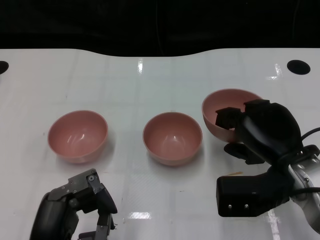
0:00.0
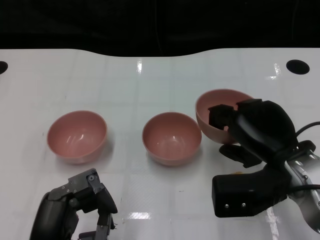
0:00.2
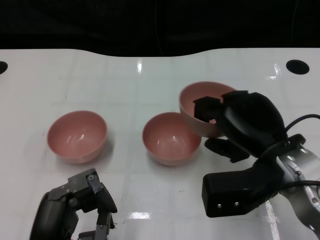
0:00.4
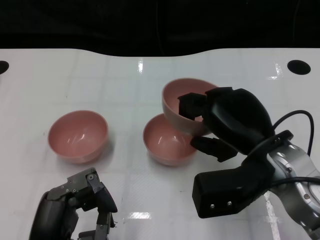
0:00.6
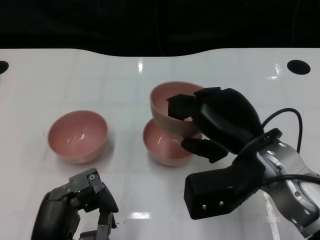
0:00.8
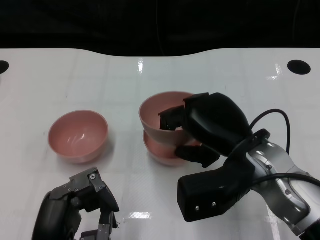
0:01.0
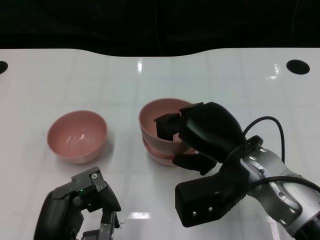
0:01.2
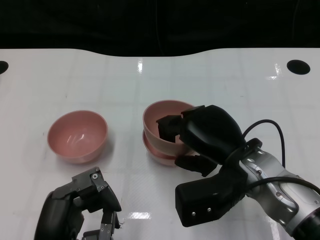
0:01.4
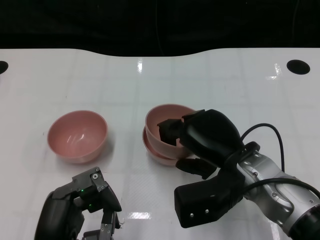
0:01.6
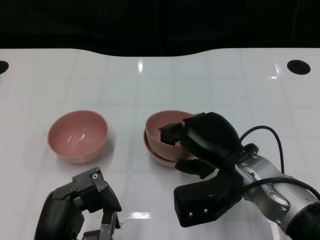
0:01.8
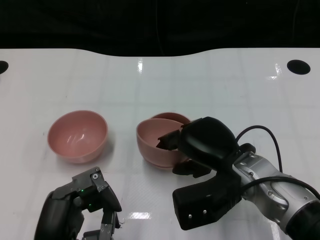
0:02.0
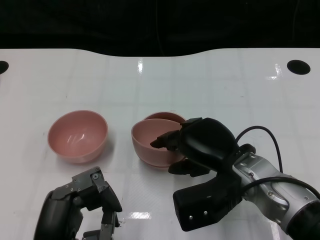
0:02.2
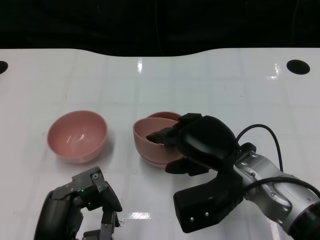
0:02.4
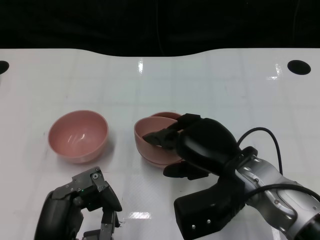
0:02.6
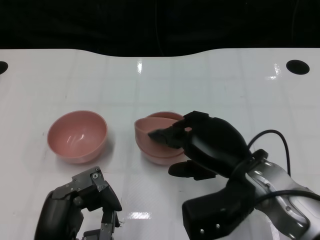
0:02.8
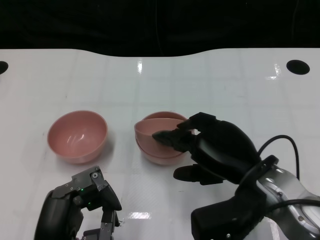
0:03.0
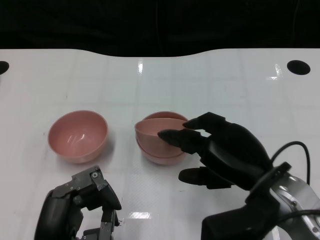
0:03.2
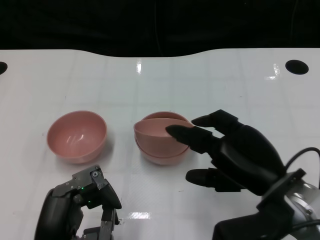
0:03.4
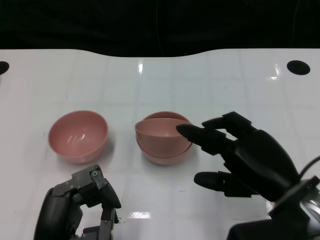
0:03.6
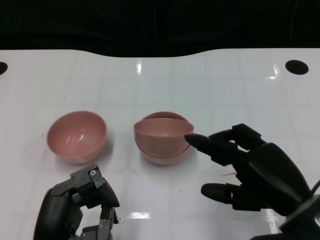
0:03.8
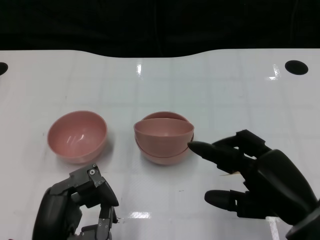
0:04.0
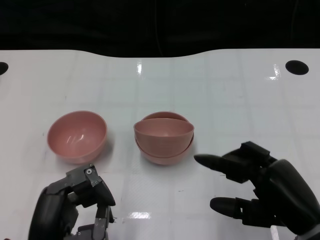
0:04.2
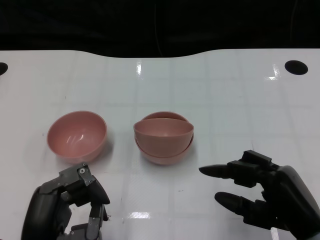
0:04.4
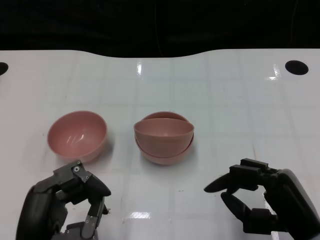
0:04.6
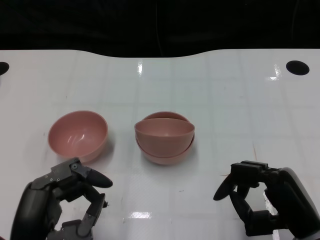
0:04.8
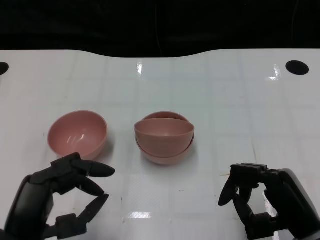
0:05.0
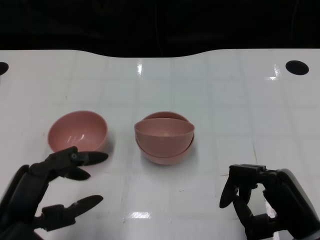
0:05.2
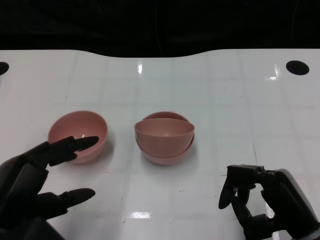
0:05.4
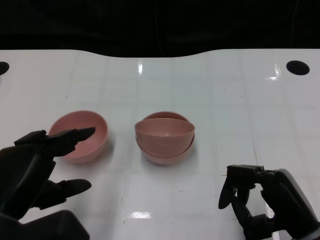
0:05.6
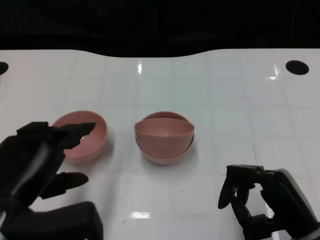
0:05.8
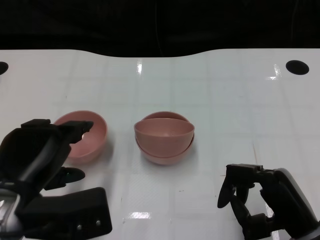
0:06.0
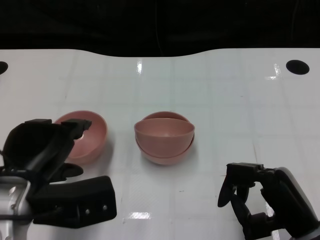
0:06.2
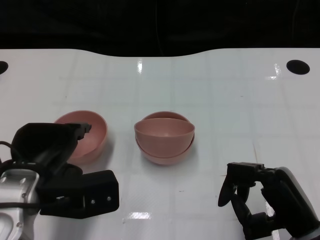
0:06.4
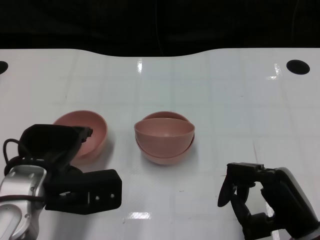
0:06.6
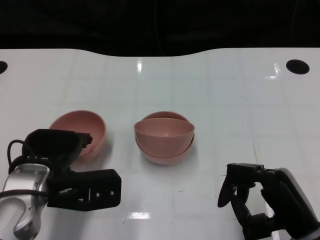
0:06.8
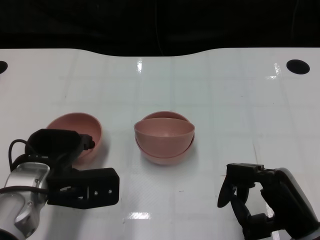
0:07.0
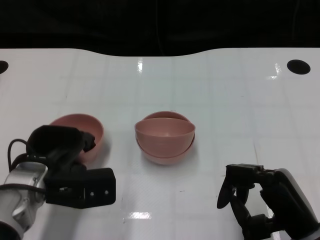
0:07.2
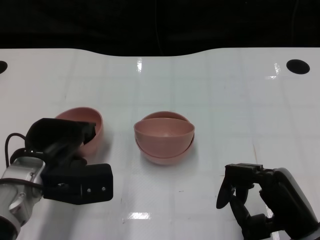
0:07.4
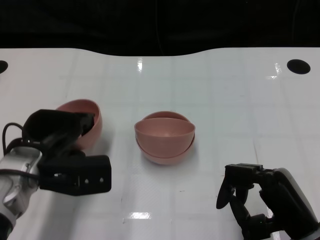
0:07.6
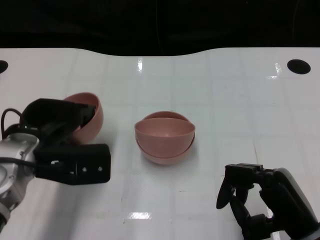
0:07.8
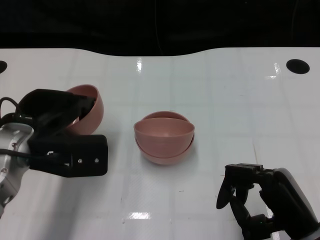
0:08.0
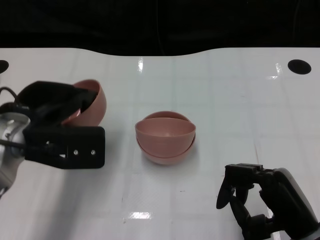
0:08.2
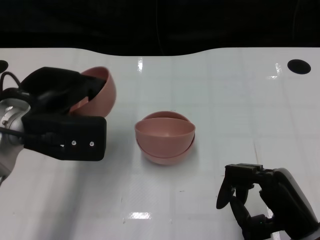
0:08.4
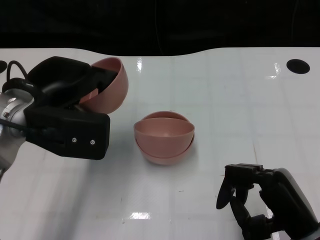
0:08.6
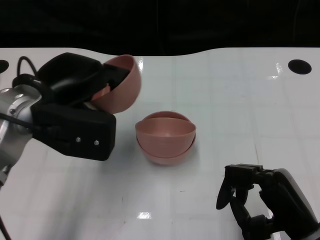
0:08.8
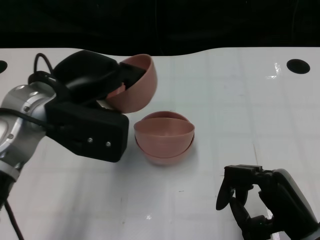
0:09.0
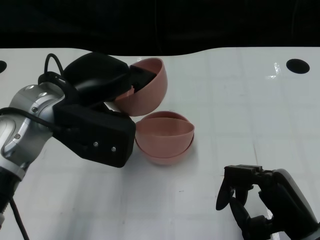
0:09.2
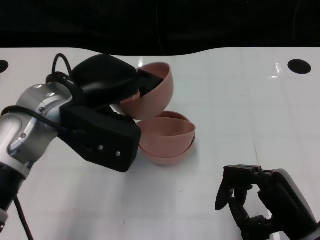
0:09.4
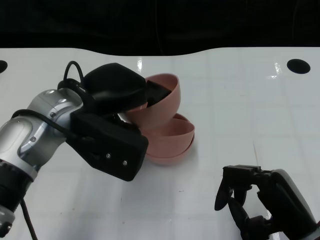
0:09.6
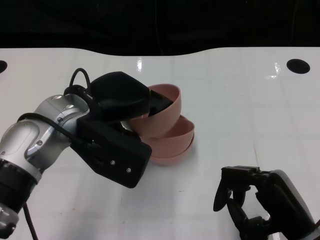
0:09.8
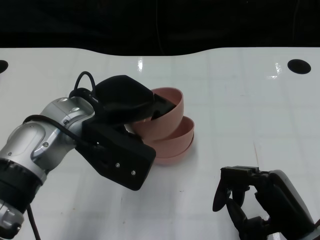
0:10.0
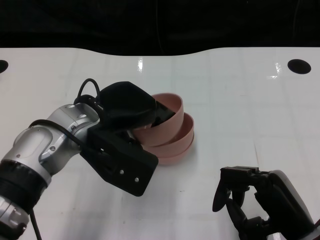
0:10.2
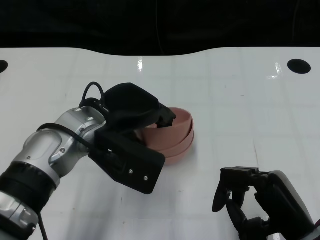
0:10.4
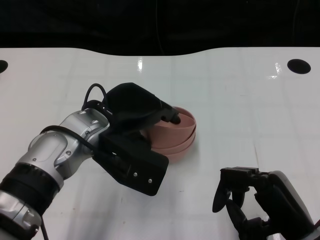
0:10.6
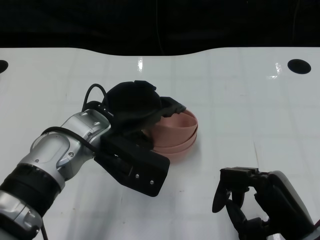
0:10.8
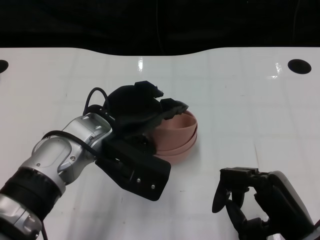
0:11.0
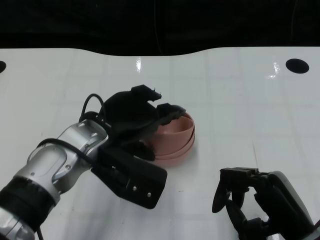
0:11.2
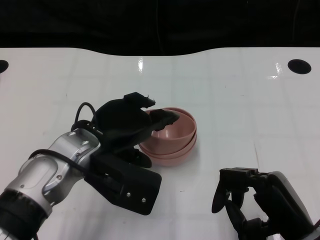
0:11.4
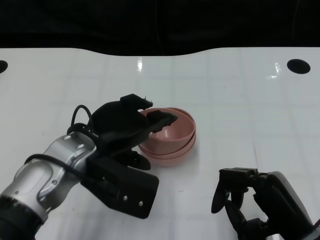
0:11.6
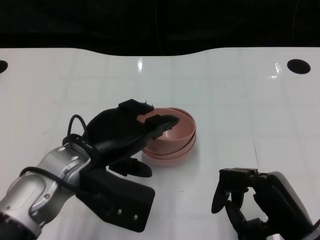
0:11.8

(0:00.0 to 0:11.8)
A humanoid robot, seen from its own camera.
Task of the whole recording: Pick up the bowl on one side of the table and place it on top of the middle bowl, then pick up the bowl on the other side of the table and place it on top of the middle bowls.
Step, 0:00.0 - 0:03.4: Place the bowl on the right onto the bowl in the middle with right gripper.
Step, 0:03.6 - 0:07.4: Grasp the bowl on the left with the left gripper.
0:00.0 - 0:01.4: The right hand shifts approximately 5 cm to the left.
0:01.4 - 0:03.0: The hands stay close to where they were, moving slightly.
0:03.0 - 0:04.4: The right hand shifts some 10 cm backward and to the right.
0:04.4 - 0:06.0: The left hand moves upward and forward, about 10 cm.
0:06.0 - 0:07.4: The left hand goes roughly 10 cm forward and downward.
0:07.4 - 0:08.8: The left hand travels upward by approximately 10 cm.
0:08.8 - 0:10.4: The left hand goes roughly 5 cm to the right.
0:10.4 - 0:11.8: The left hand changes place by about 5 cm.

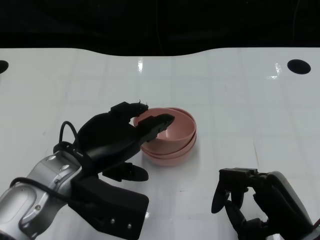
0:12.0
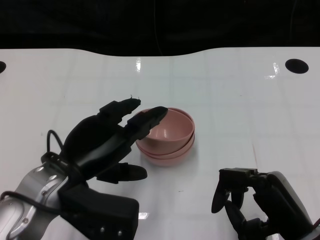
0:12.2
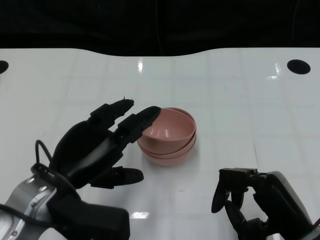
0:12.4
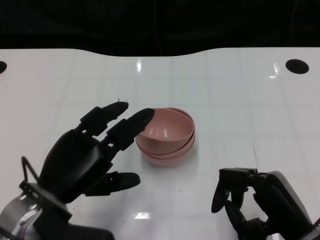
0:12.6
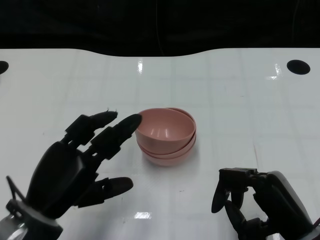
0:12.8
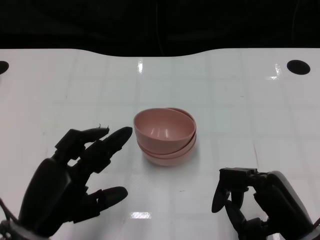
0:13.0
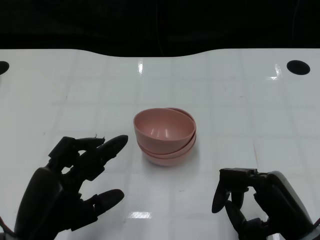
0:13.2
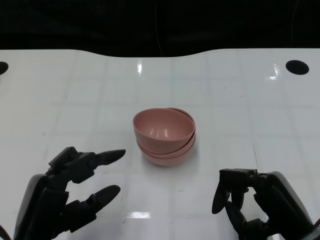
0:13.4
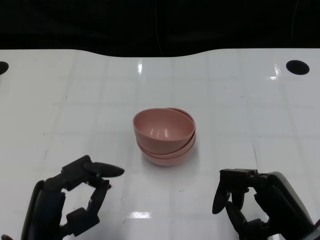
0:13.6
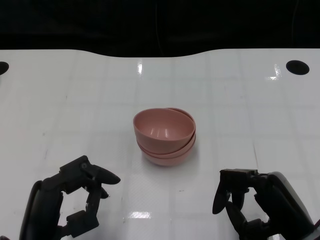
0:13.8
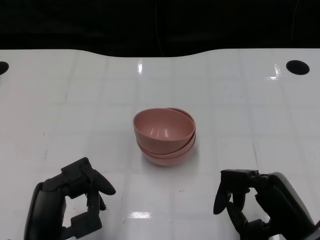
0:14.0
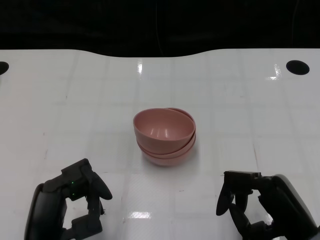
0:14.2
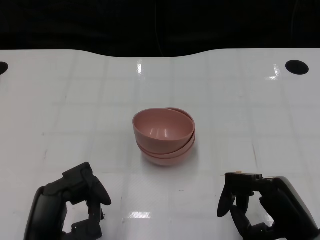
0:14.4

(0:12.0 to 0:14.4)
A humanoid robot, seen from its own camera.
Task of the whole recording: Pick up the bowl on one side of the table and place it on top of the middle bowl, then pick up the bowl on the other side of the table and place it on top of the middle bowls.
0:12.0 - 0:13.2: The left hand travels backward and to the left by approximately 10 cm.

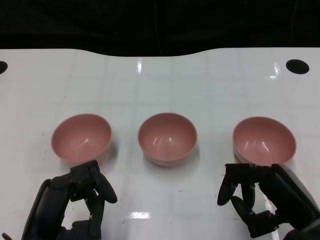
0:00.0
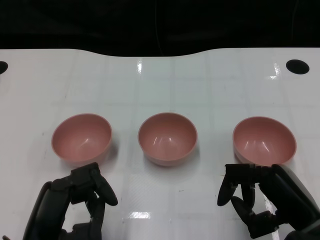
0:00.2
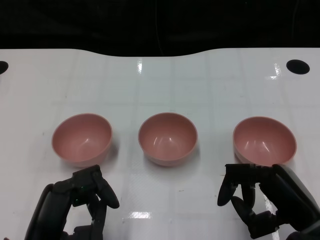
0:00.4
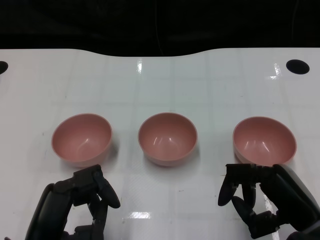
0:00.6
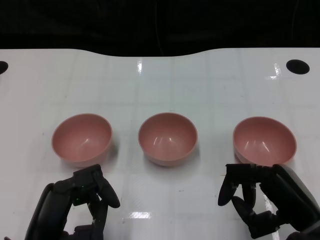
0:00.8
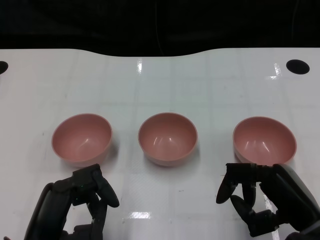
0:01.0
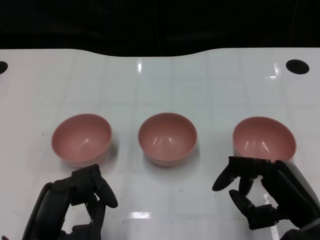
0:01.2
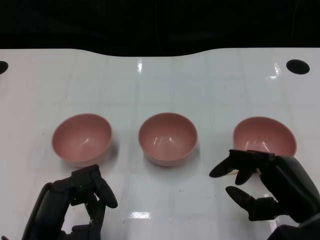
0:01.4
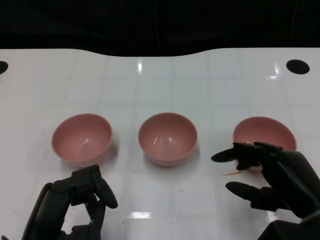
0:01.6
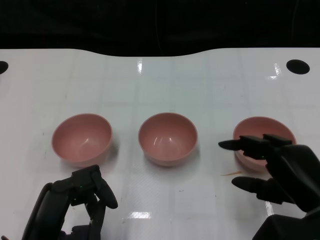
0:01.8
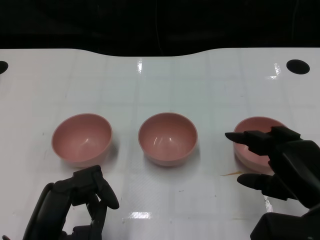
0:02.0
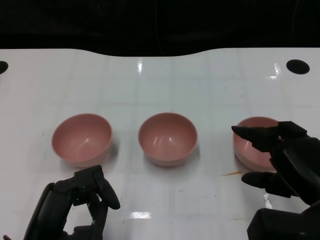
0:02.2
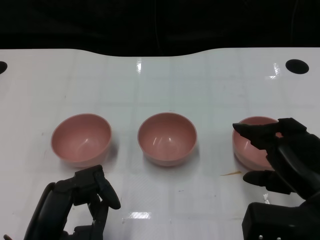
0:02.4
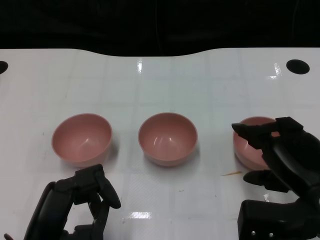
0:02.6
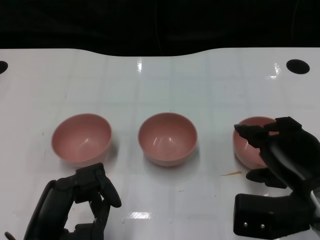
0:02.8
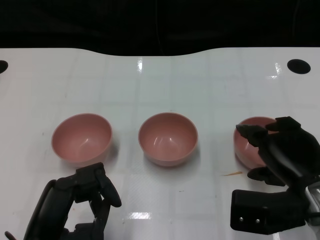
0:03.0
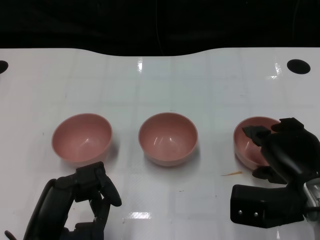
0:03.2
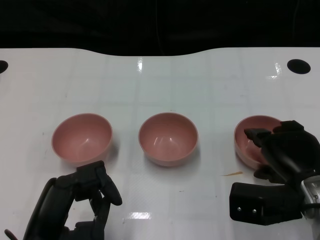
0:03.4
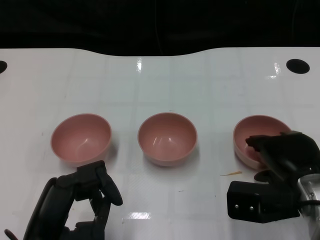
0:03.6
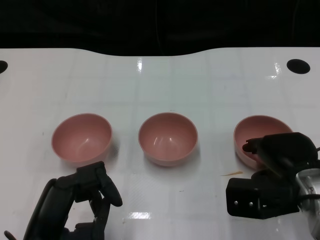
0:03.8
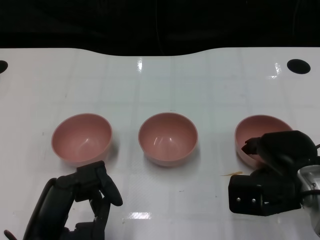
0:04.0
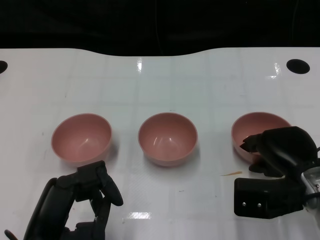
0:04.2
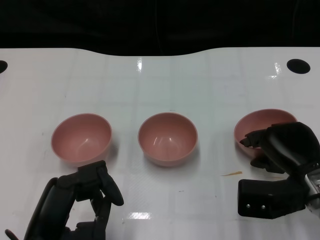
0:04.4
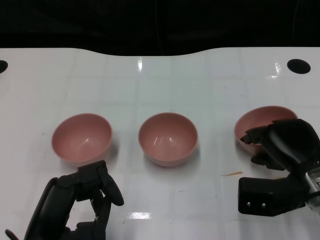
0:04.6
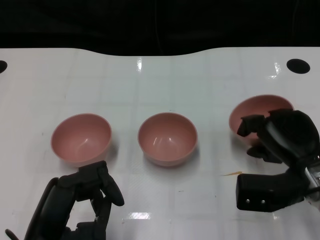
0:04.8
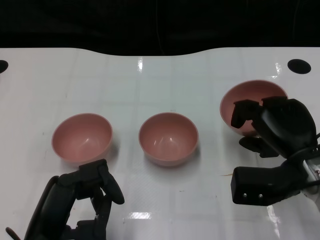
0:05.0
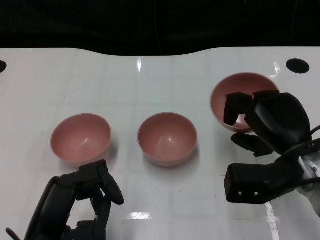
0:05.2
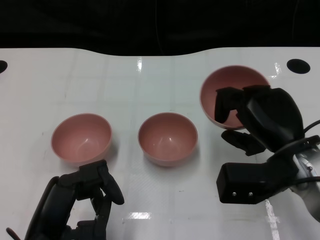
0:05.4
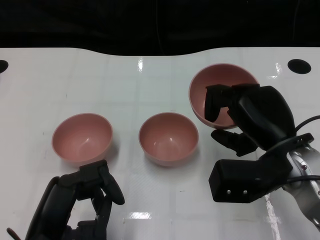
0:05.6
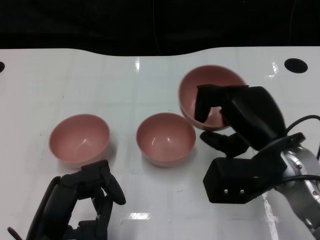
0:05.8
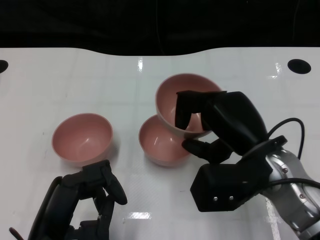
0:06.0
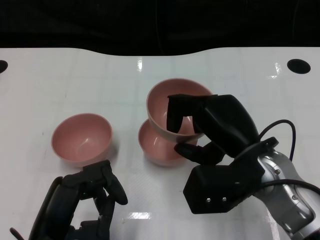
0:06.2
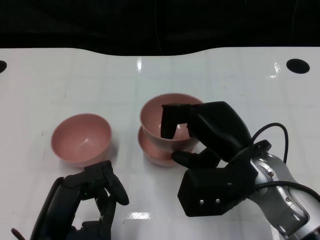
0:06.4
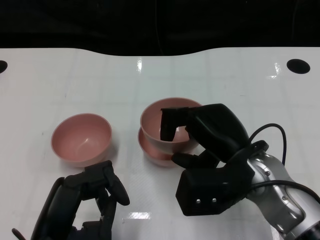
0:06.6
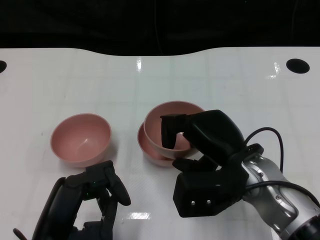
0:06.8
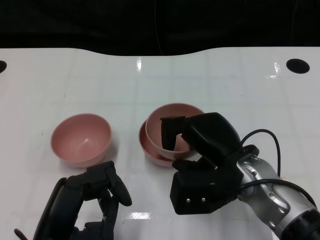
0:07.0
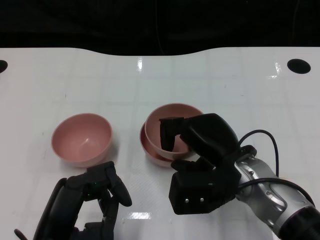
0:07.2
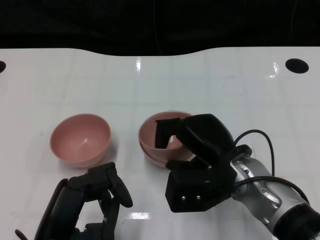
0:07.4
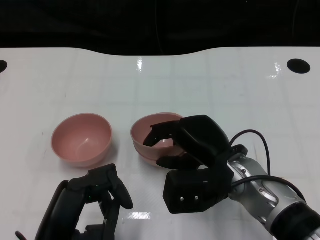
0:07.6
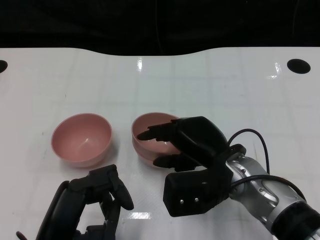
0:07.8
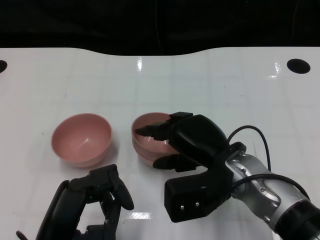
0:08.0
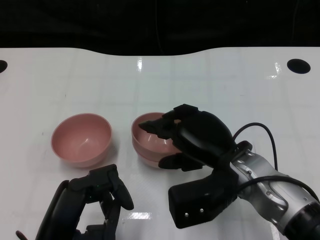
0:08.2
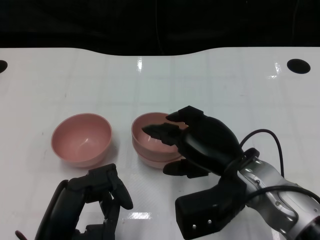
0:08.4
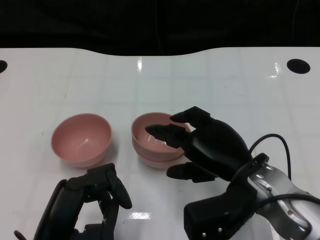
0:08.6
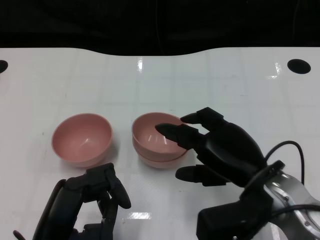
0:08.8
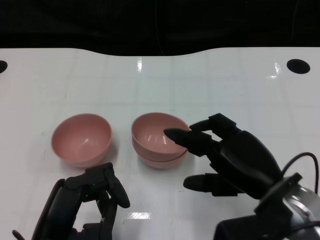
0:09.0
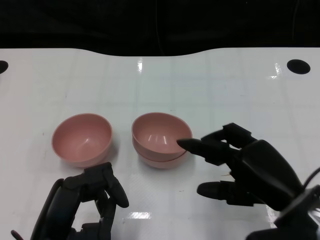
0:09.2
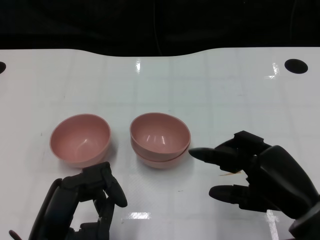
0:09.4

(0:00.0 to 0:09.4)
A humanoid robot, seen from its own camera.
Task of the whole recording: Pick up the bowl on one side of the table and place it on top of the middle bowl, then pick up the bowl on the other side of the table and place it on top of the middle bowls.
Step, 0:01.2 - 0:04.6: Grasp the bowl on the right with the right gripper.
Step, 0:04.8 - 0:09.0: Place the bowl on the right onto the bowl in the middle with right gripper.
0:01.6 - 0:03.2: The right hand shifts some 5 cm forward.
0:03.2 - 0:04.8: The hands stay close to where they were, moving slightly.
0:04.8 - 0:06.2: The right hand moves to the left and upward, about 10 cm.
0:06.2 - 0:07.8: The right hand ends up roughly 5 cm from where it was.
0:07.8 - 0:09.4: The right hand is displaced to the right and backward by some 15 cm.
